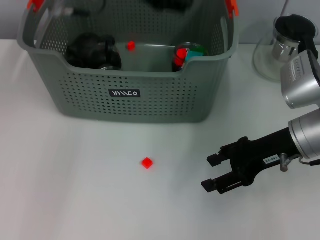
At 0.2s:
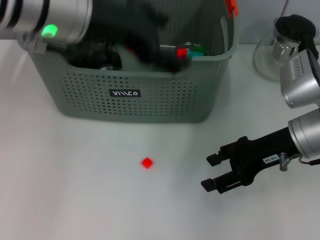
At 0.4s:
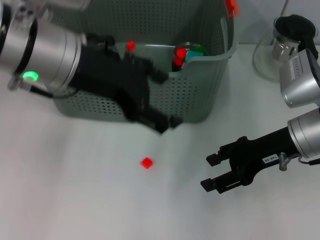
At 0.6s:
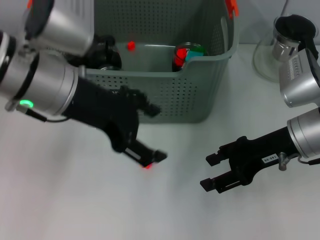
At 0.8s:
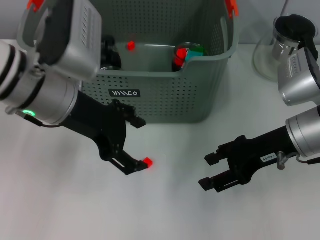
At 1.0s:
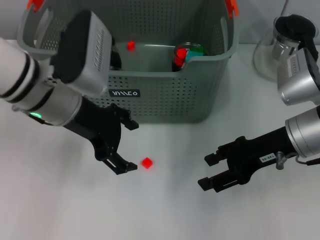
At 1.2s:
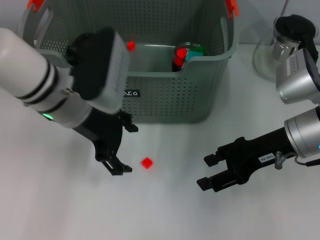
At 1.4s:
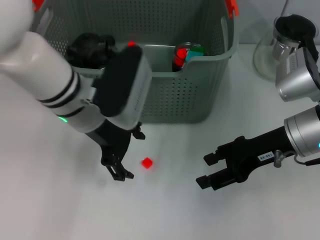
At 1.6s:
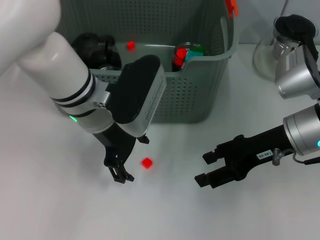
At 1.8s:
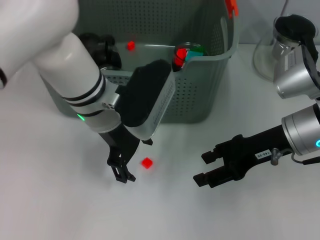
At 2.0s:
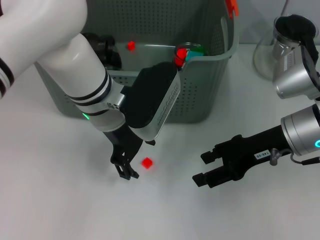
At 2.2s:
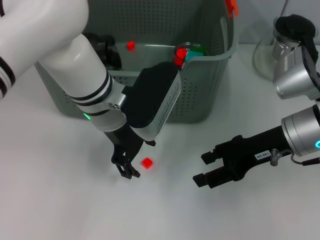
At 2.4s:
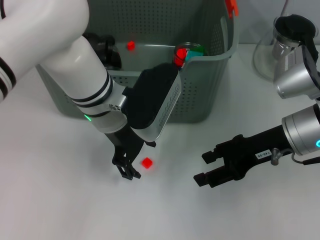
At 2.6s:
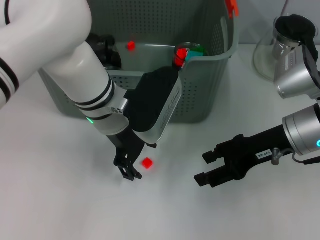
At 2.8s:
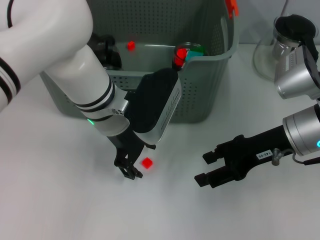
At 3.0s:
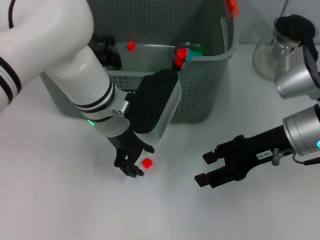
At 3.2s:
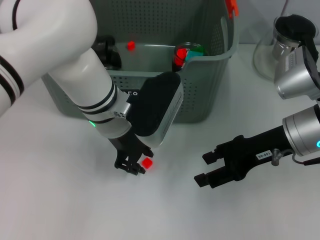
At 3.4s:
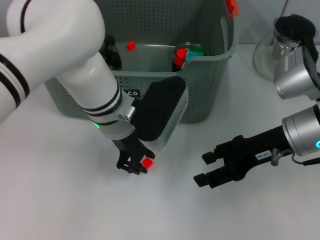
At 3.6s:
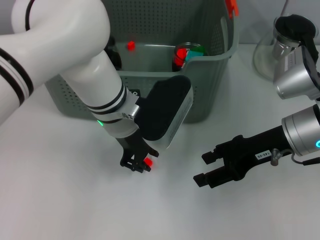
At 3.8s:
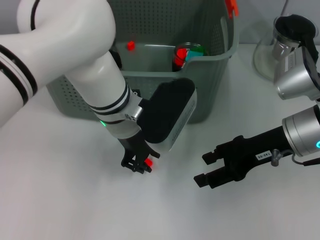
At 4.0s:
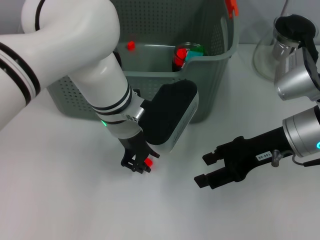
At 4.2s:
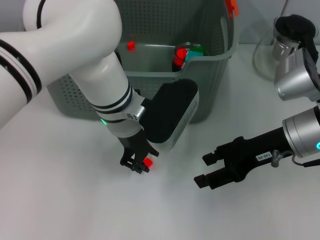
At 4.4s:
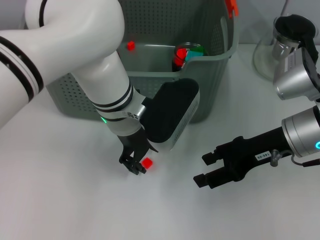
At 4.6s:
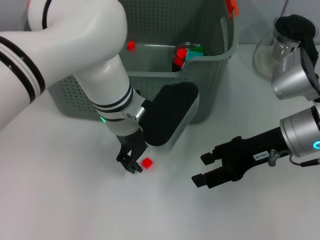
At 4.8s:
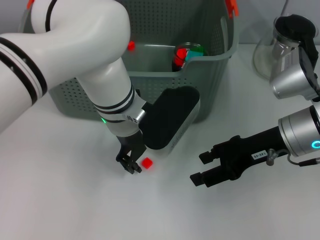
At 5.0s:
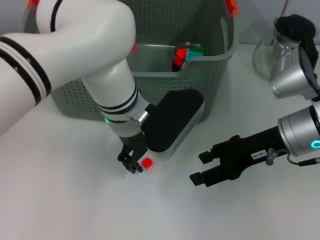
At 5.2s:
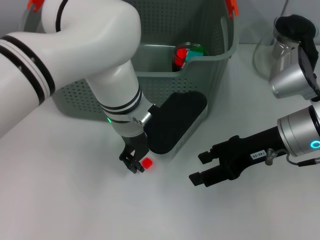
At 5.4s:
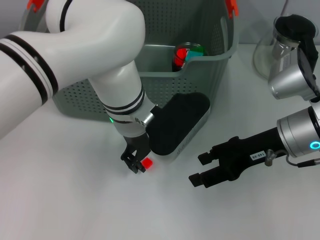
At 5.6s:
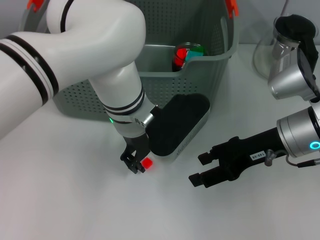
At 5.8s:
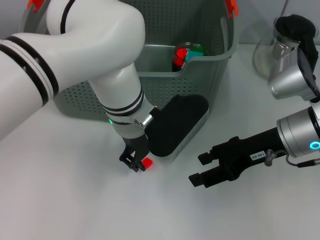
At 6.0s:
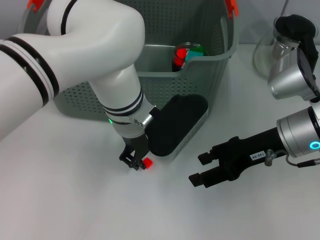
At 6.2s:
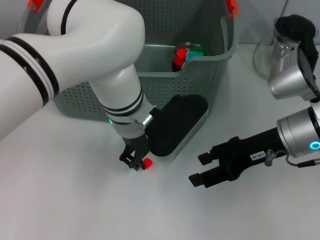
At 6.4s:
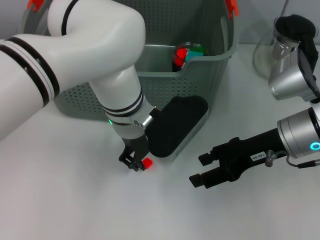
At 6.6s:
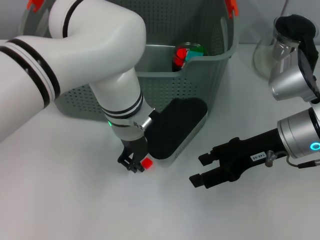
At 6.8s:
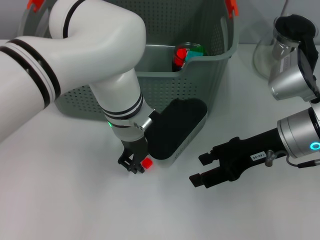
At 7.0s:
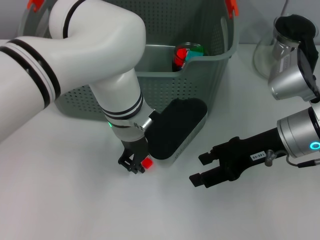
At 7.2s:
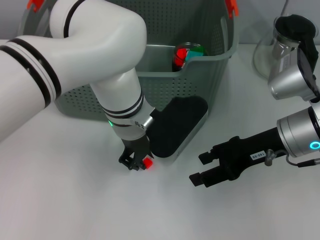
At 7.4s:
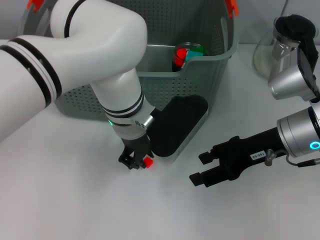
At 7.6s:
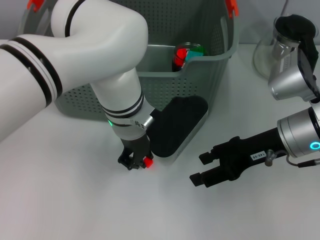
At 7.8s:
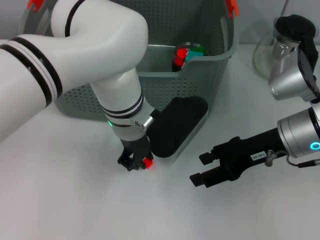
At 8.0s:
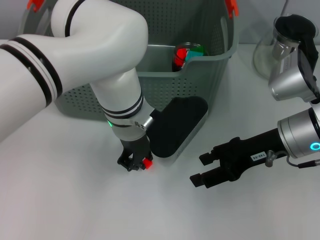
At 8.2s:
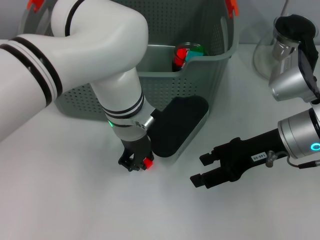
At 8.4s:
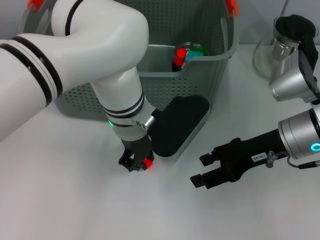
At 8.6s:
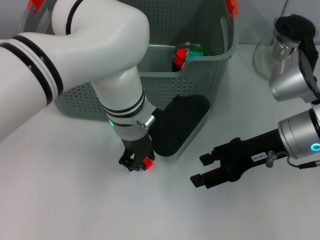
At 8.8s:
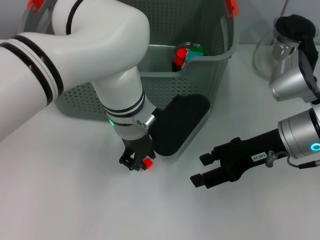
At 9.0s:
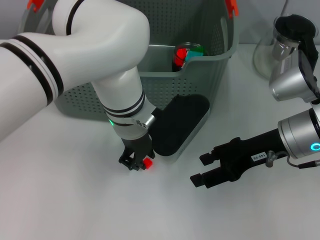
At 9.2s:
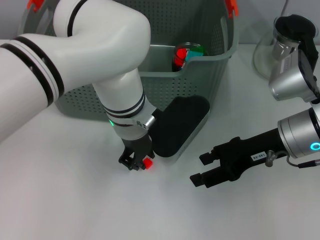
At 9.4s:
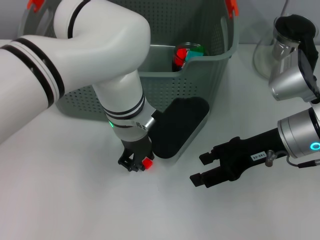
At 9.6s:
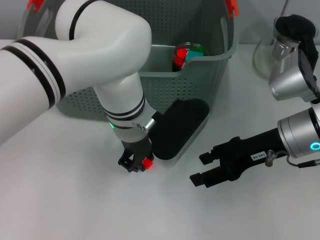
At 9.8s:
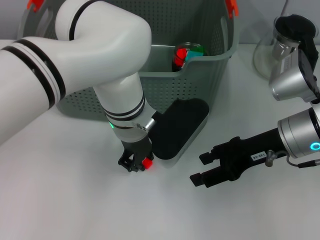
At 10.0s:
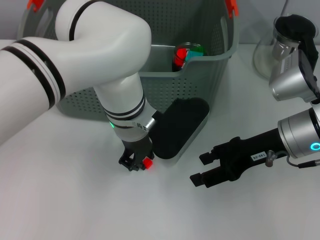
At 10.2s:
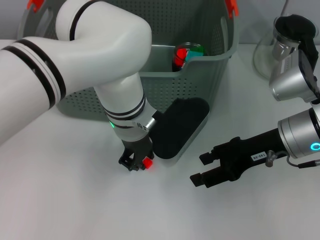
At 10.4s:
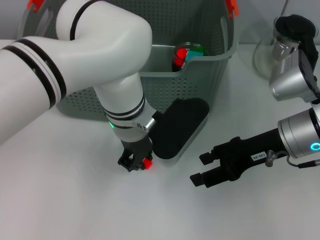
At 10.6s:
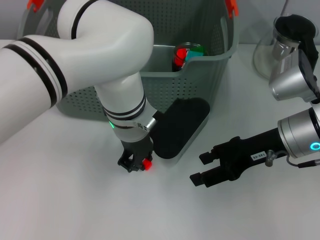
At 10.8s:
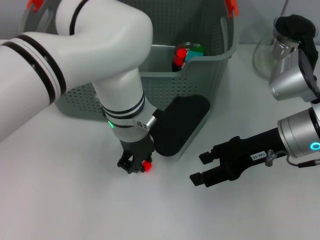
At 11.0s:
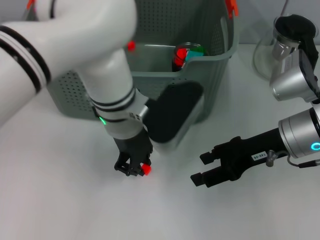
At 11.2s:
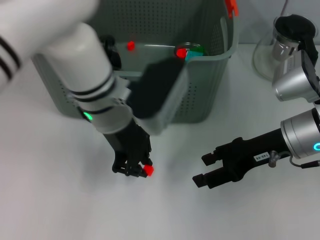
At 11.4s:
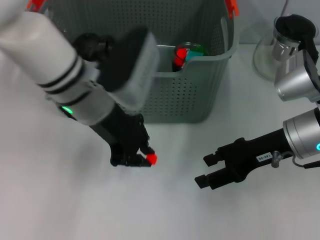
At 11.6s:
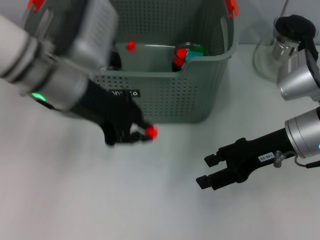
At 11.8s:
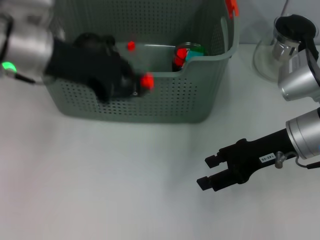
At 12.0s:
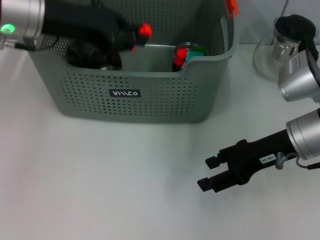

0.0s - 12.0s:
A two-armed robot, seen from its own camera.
Task of the whole recording: pick up the teacup on the table and place it into the storage bin, pick up the block on the table and place it into the storage bin.
Step, 0.0s - 10.2s: Grasp the orange block with left gripper.
0.0s - 1.6s: The left gripper goes about 10 cm downward.
1.6s - 4.4s: There are only small adjustments of the grippers.
6.0s - 10.4s: The two grippers keep their place.
10.4s - 12.0s: The left gripper shifts roughly 20 cm to the left and upward.

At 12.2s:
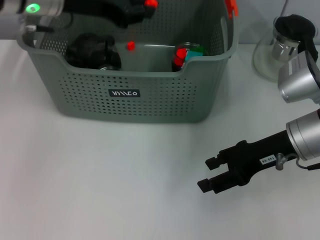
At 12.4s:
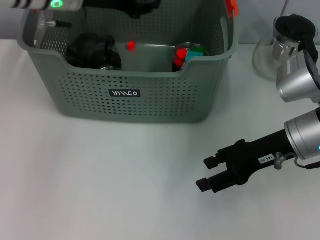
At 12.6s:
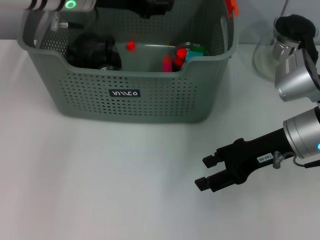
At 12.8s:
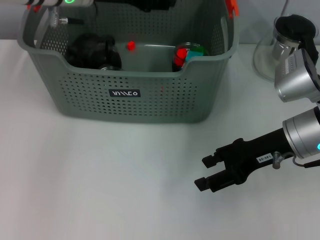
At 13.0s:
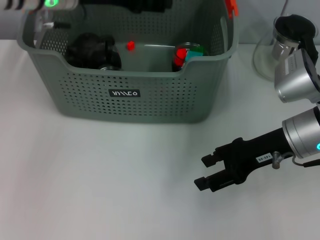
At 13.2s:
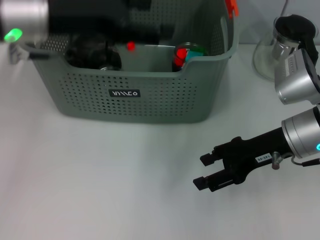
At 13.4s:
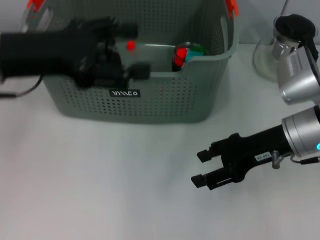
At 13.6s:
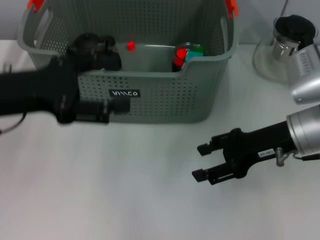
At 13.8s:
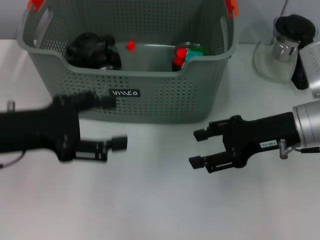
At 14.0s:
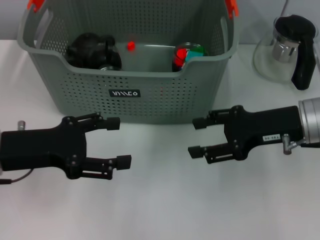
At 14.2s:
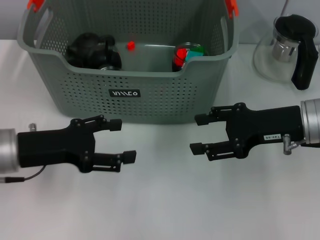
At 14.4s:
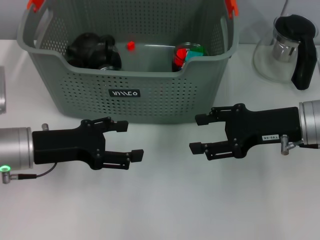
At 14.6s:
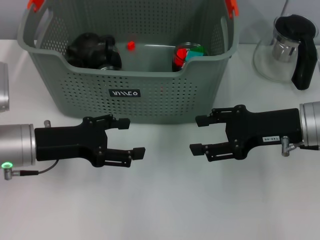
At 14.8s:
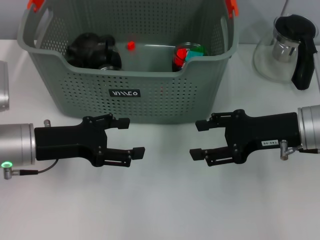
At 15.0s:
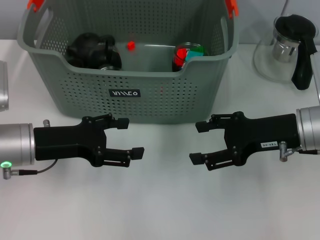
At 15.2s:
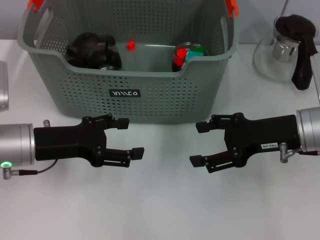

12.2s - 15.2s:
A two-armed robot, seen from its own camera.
Task of the whole recording: pick up the teacup on the table and place it into the storage bin, pick up the block on the table and place it into the storage bin.
12.2s - 13.8s: The left gripper shifts about 20 cm backward, downward and to the left, and opens its fingers.
13.8s - 15.2s: The left gripper is displaced downward by roughly 5 cm.
